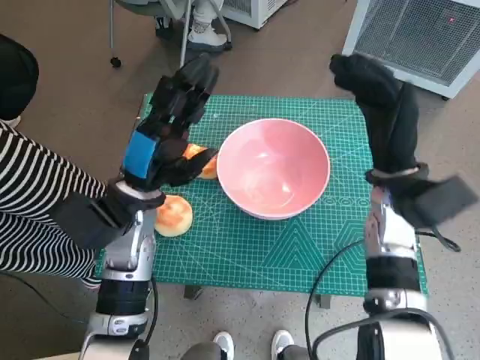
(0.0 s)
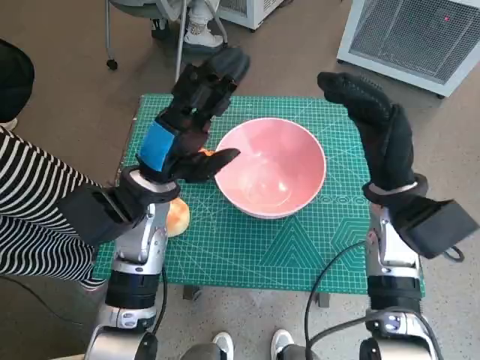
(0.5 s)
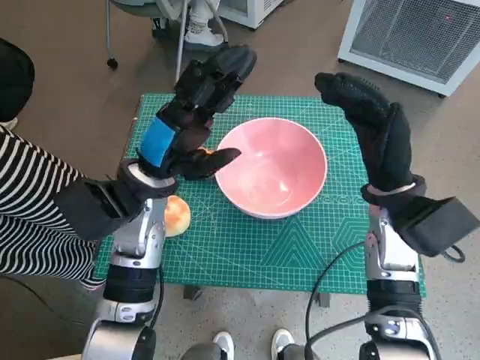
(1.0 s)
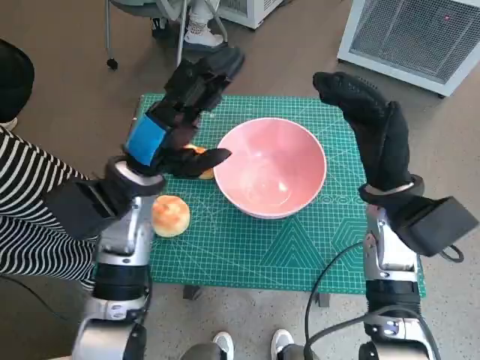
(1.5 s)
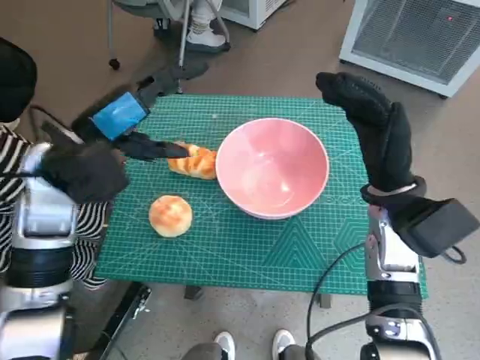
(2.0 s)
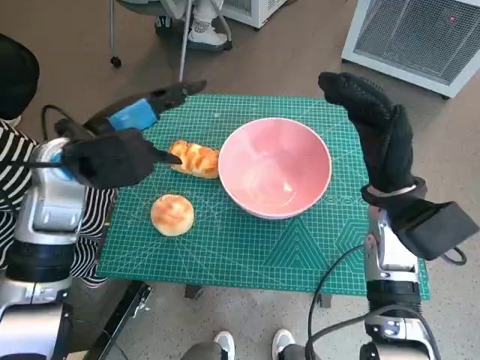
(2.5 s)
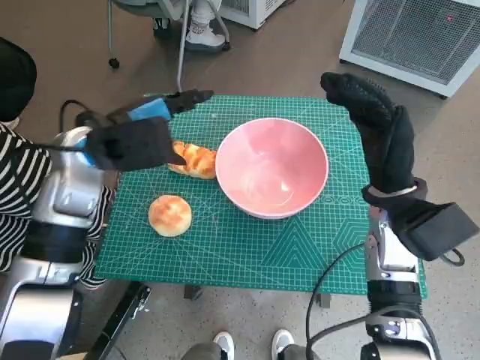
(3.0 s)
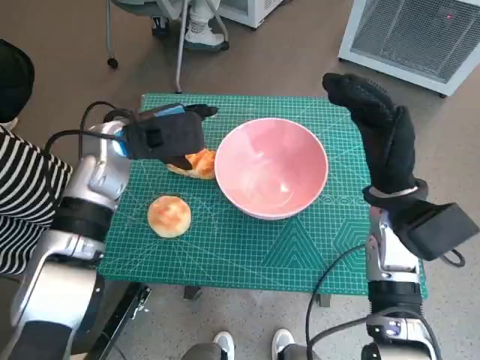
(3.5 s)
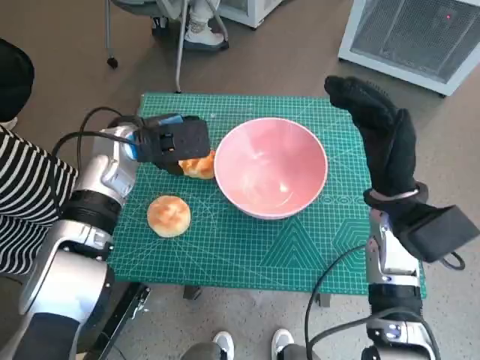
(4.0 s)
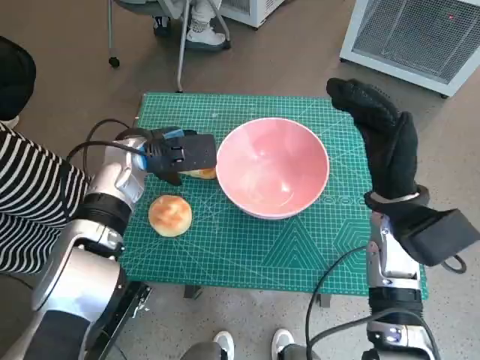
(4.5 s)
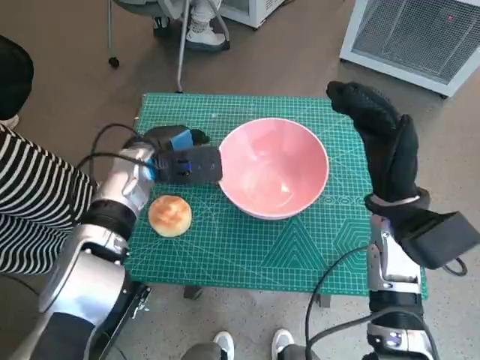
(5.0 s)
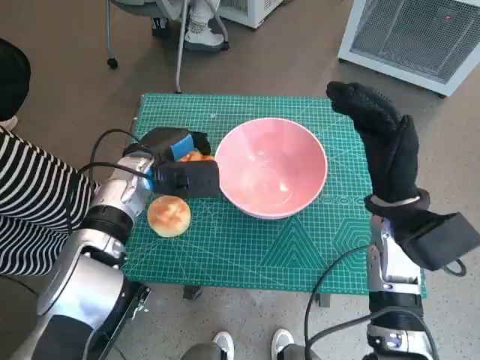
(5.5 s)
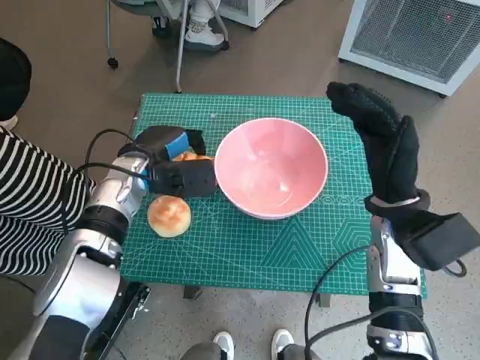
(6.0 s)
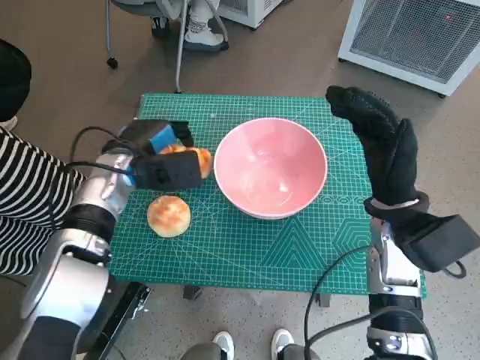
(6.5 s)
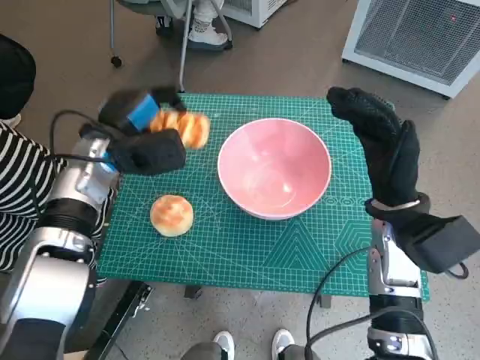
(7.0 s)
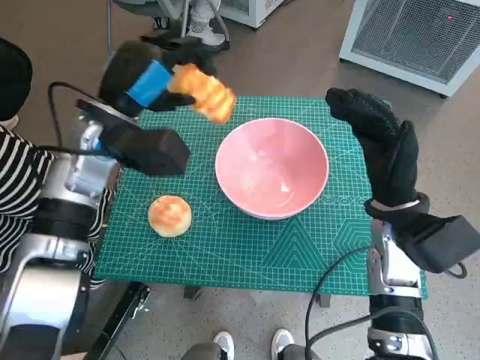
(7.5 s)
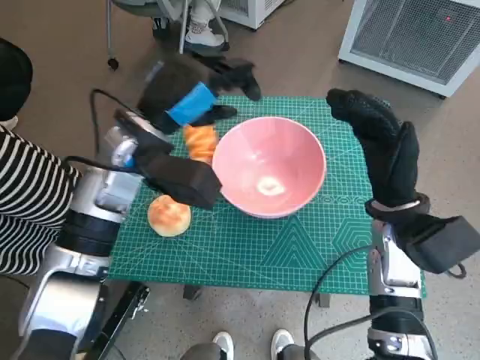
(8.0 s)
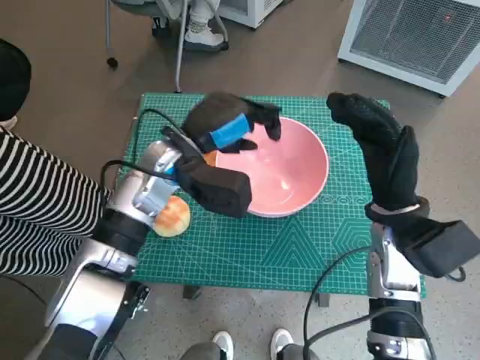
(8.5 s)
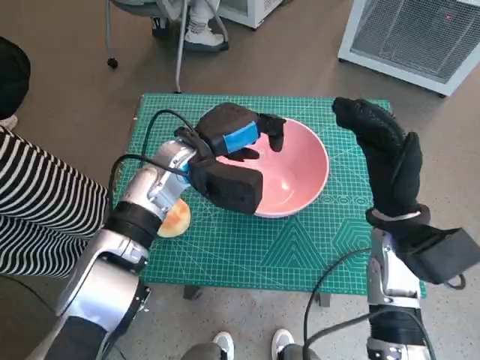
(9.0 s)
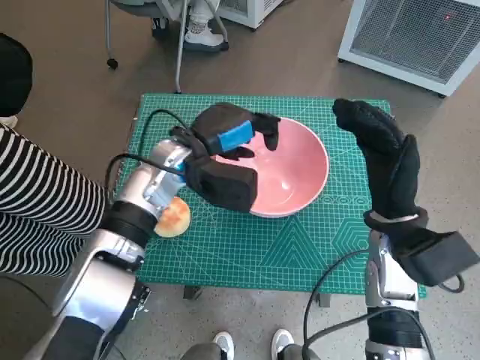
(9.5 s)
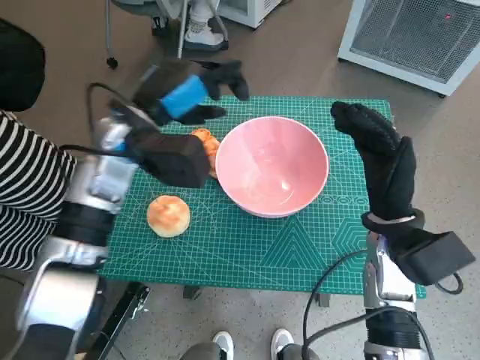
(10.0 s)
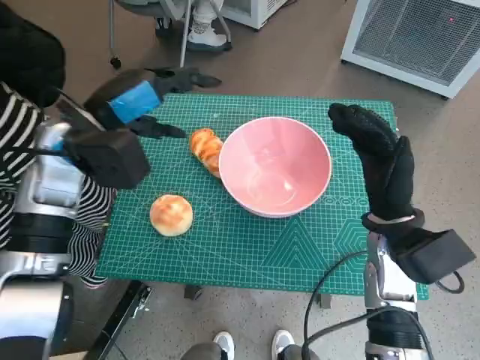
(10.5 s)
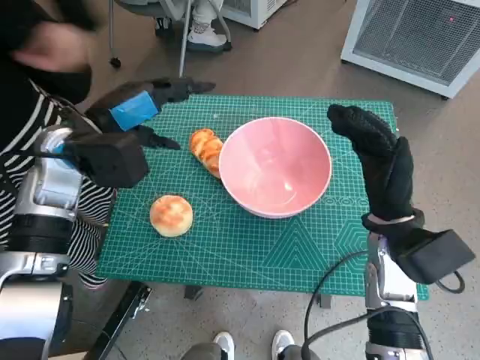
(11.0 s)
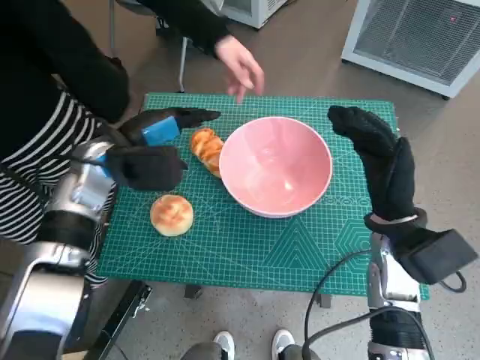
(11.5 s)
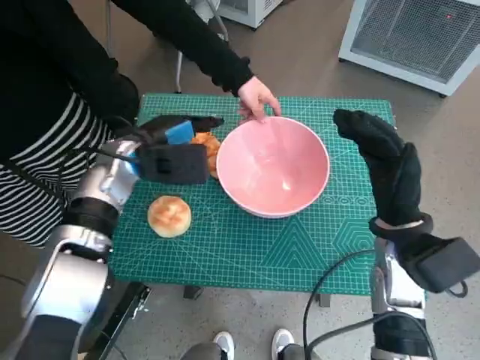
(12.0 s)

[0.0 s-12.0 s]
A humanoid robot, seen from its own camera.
Task of the whole recording: Push the bowl into the center of the table and put the bread into the bowl.
0.0 to 2.0 s: The left hand shifts roughly 10 cm upward and to the left.
2.0 to 4.0 s: The left hand shifts approximately 10 cm forward and downward.
4.0 to 6.0 s: The left hand shifts roughly 5 cm downward.
6.0 to 8.0 s: The left hand travels upward by roughly 10 cm.
10.0 to 12.0 s: The left hand travels downward by some 5 cm.

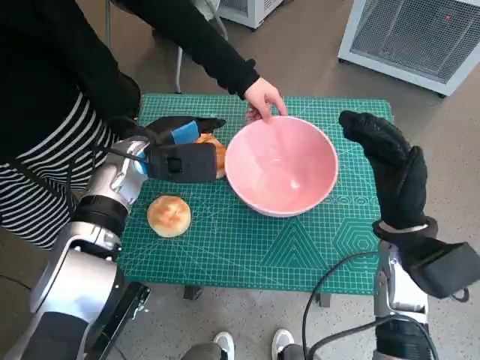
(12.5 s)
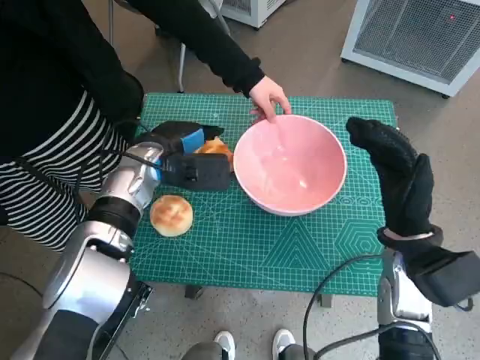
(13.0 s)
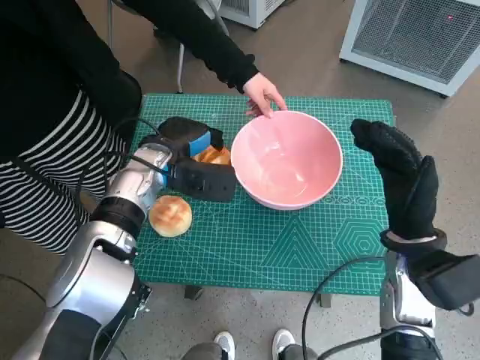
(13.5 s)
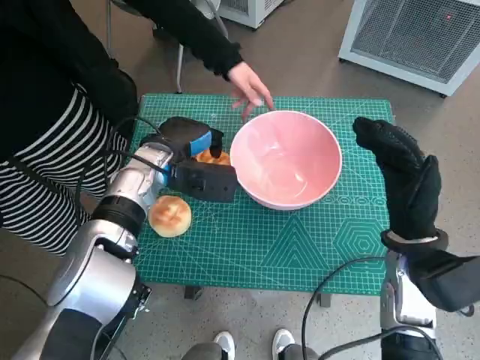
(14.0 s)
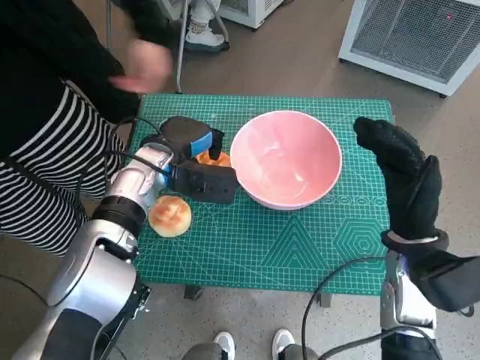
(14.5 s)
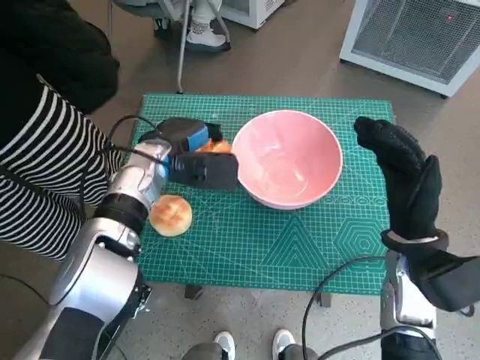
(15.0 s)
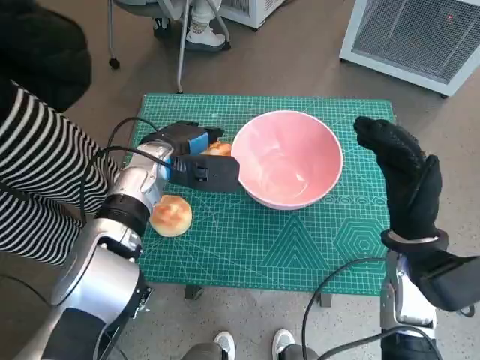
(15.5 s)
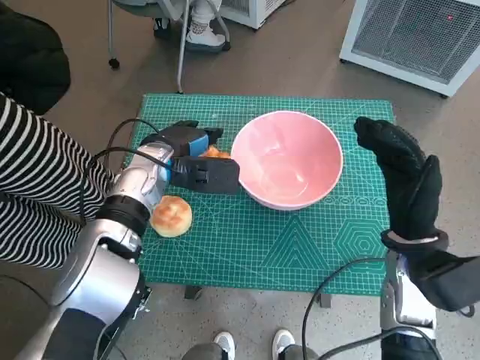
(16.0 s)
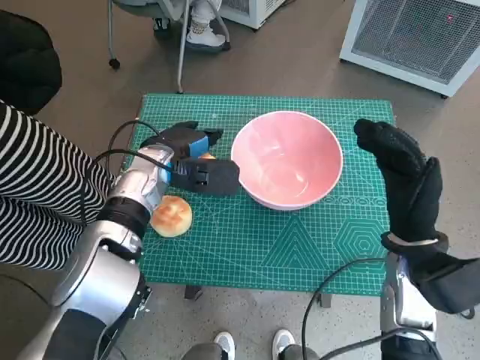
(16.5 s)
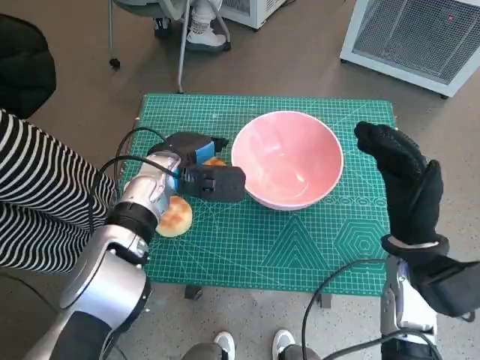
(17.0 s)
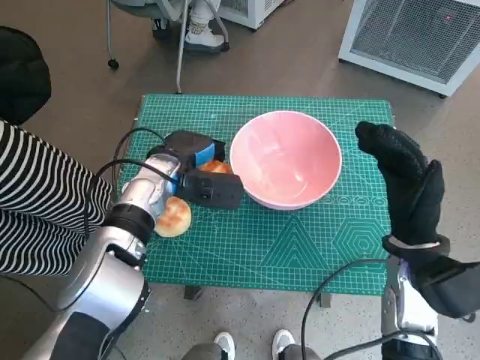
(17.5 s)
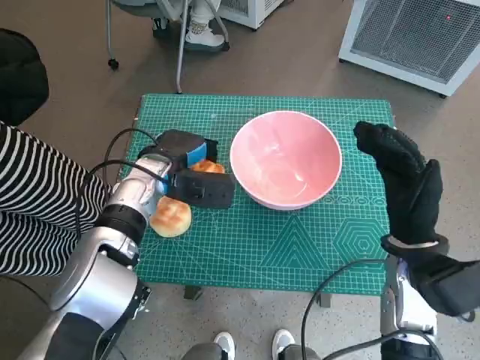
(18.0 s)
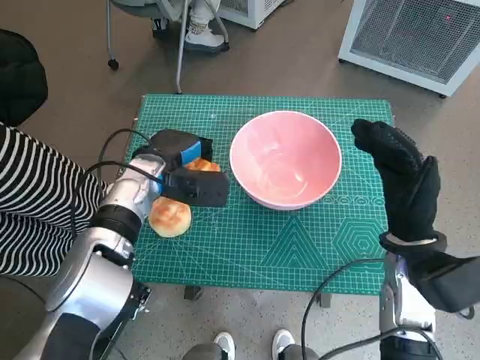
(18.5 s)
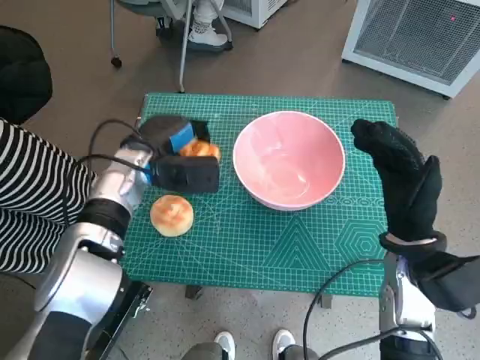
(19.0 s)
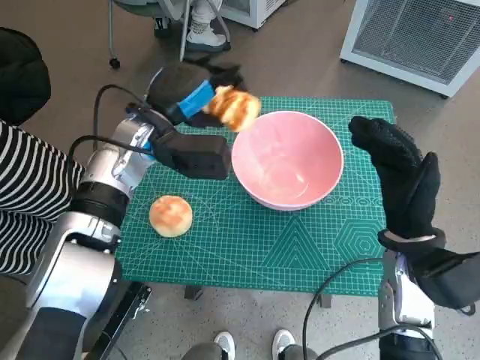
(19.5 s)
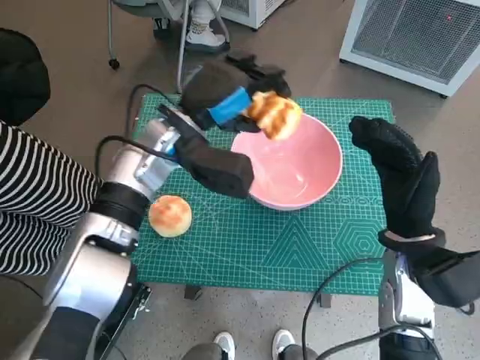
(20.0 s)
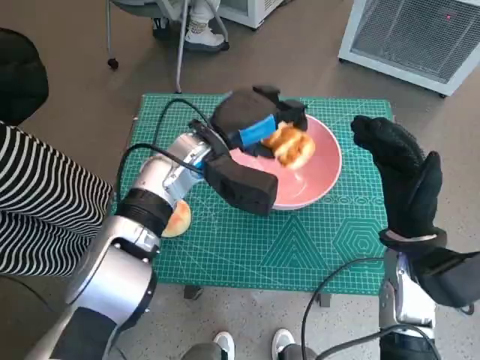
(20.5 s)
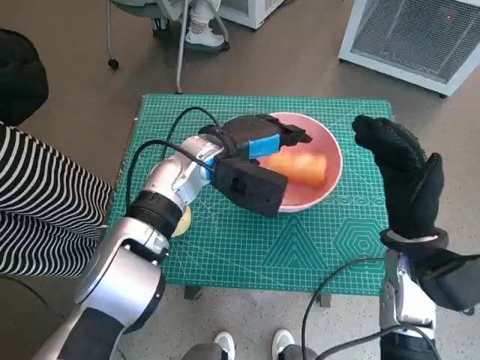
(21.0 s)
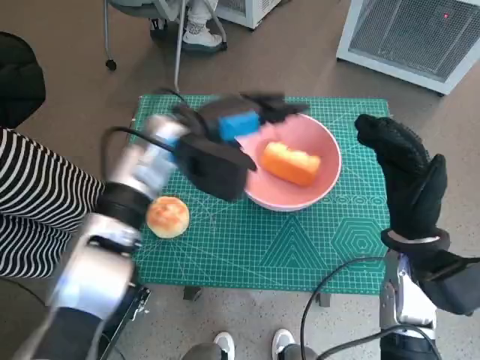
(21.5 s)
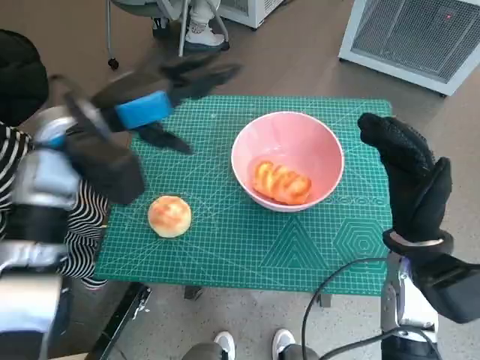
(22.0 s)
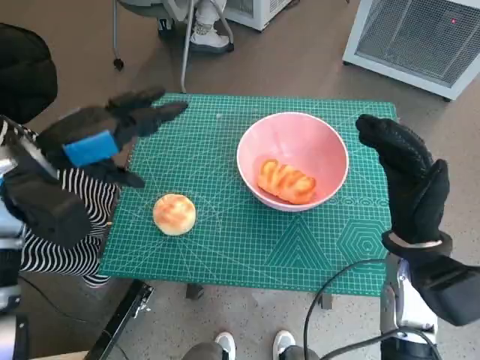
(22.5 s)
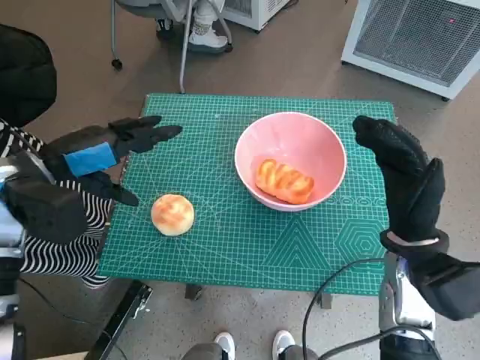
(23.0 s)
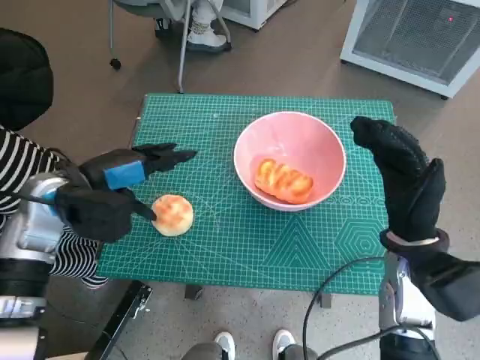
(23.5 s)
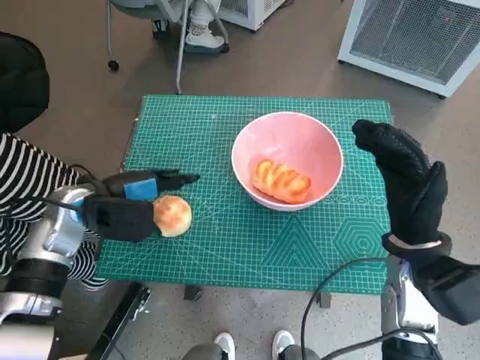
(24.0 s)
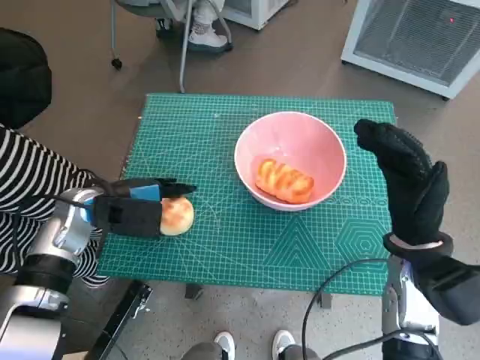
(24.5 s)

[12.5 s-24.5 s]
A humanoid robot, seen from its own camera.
Task of the whole recording: Push the bowl into the center of the table and put the bread into the bowl.
Step, 12.5 to 17.5 s: Grasp the long bread with left hand.
Step, 18.0 to 21.5 s: Place the long bread in pink bowl with left hand.
16.5 to 18.5 s: The hands make only small movements.
18.5 to 20.5 s: The left hand is displaced to the right and upward by some 10 cm.
20.5 to 22.5 s: The left hand is displaced to the left by some 20 cm.
22.5 to 24.5 s: The left hand shifts roughly 10 cm downward.

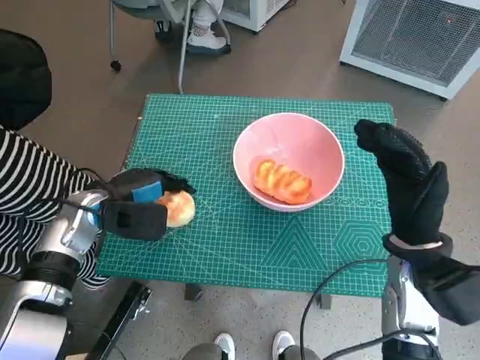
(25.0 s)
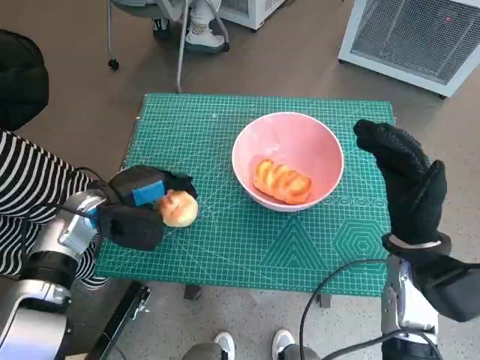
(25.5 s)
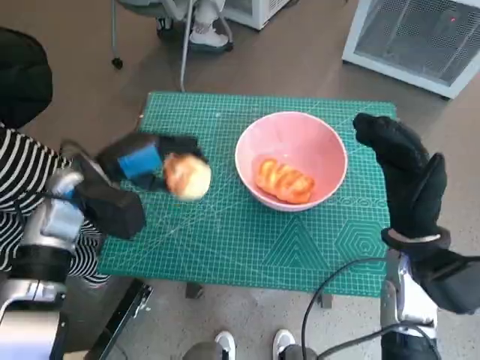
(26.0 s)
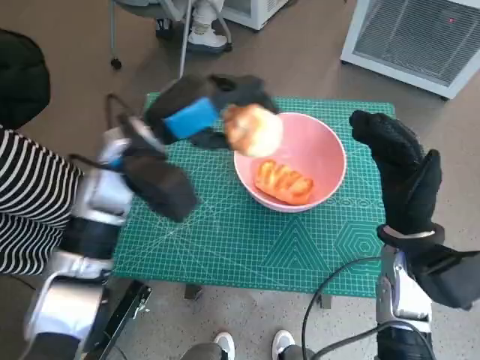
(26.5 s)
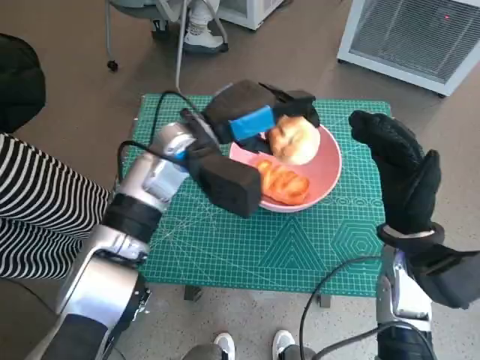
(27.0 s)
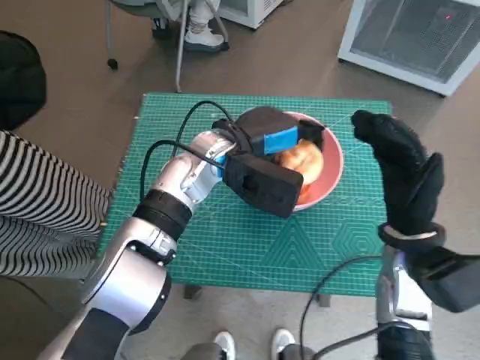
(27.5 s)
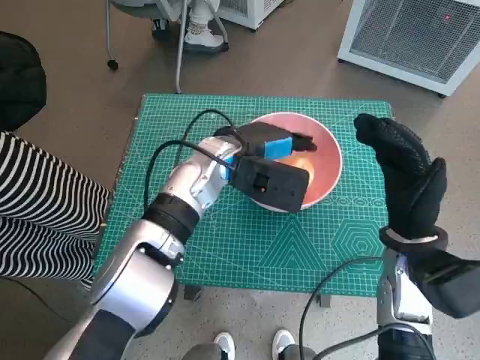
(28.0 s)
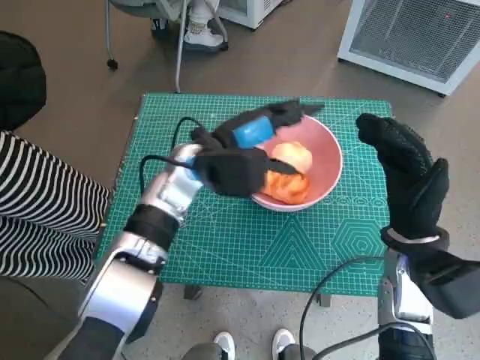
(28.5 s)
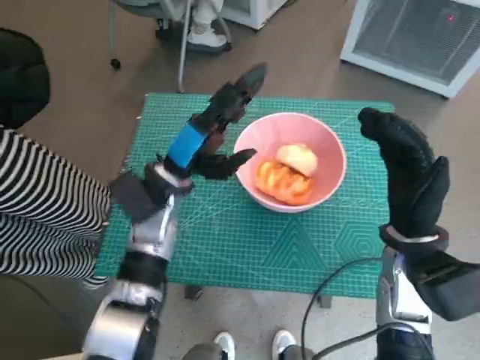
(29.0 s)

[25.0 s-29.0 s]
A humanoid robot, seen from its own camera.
Task of the whole recording: Push the bowl into the center of the table and put the bread into the bowl.
25.0 to 27.0 s: The left hand shifts some 20 cm to the right and upward.
27.0 to 29.0 s: The left hand heads downward, covering approximately 5 cm.
